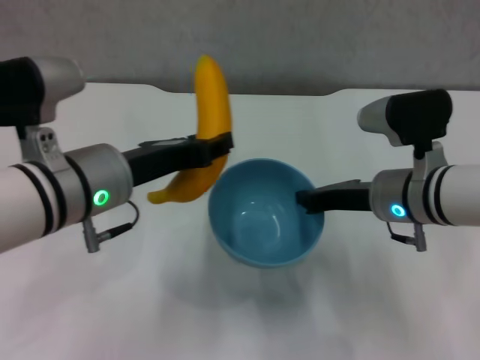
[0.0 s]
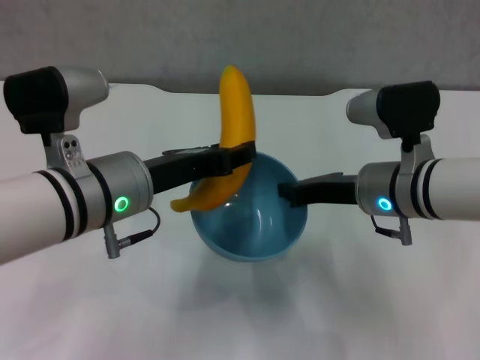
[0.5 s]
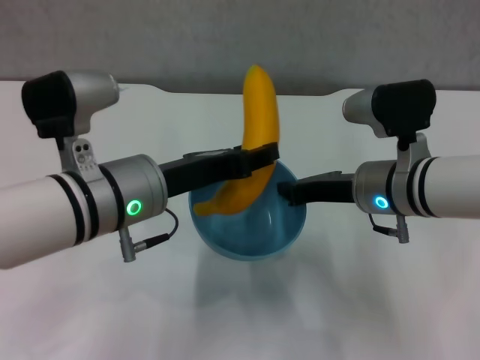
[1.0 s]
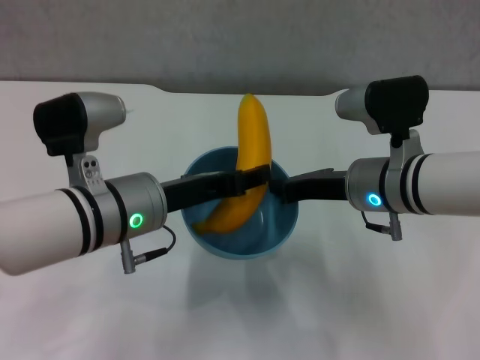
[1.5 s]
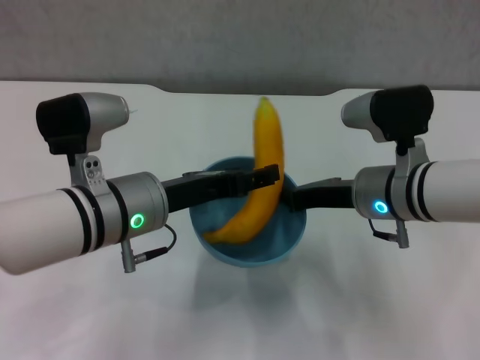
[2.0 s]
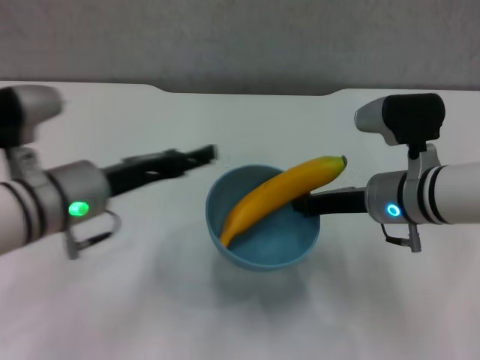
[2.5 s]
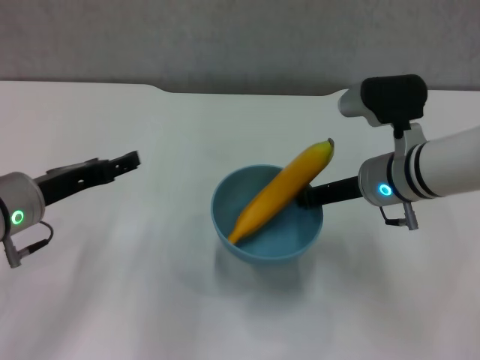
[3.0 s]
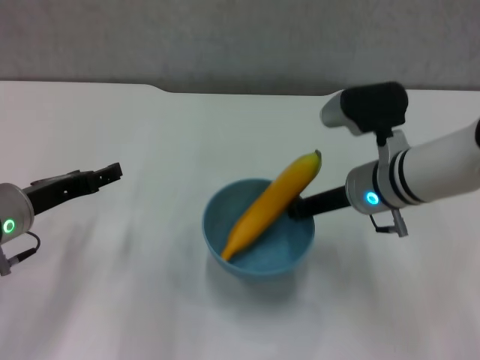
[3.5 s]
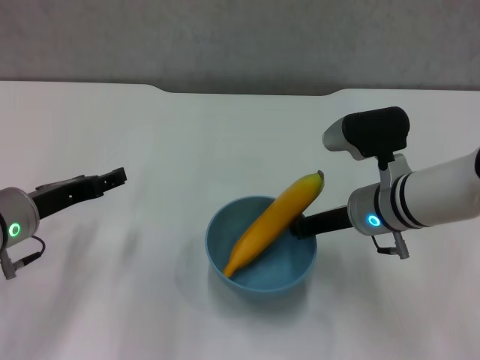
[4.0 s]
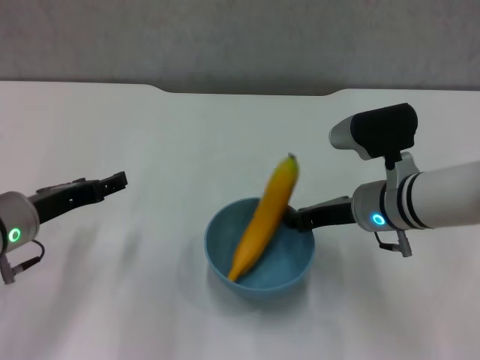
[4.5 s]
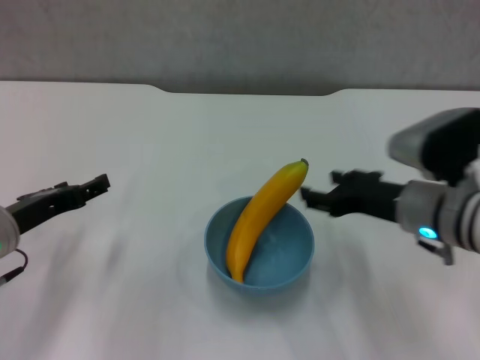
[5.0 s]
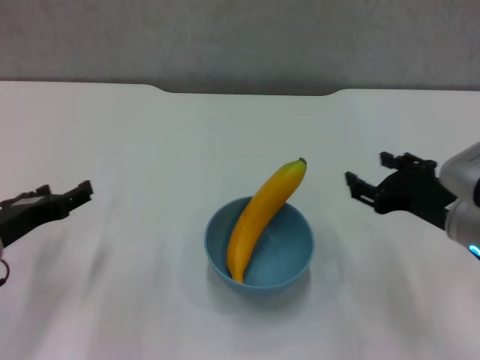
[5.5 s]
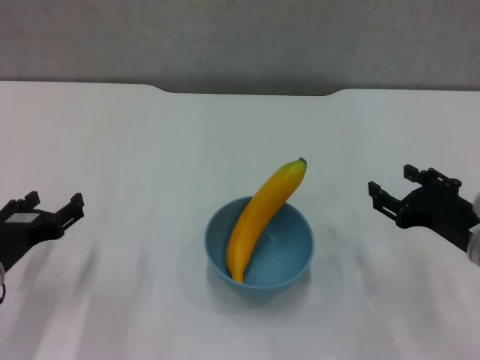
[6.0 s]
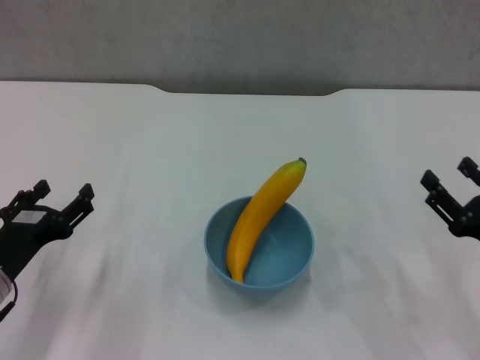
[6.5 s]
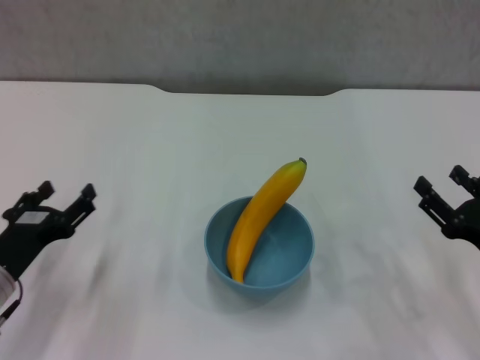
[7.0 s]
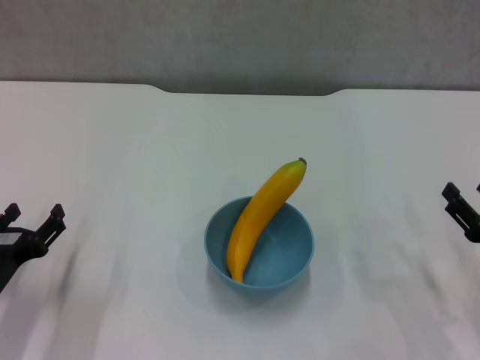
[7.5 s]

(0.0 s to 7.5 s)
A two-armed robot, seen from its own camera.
Step, 0.0 s - 2.0 s: Place the banana in the blue bowl with left gripper.
Step, 2.5 s - 4.5 s: Place the bowl on the table with right gripper.
2.0 s - 4.0 s: The left gripper shifts some 10 cm to the left, and opens up.
4.0 s - 5.5 s: The right gripper is displaced to the right and backward by about 10 cm, and opens up.
5.5 s - 7.5 s: The left gripper travels downward by roughly 5 cm; the right gripper travels to the right, downward and backward by approximately 15 cm.
